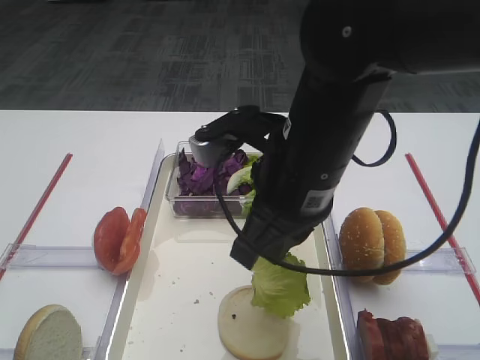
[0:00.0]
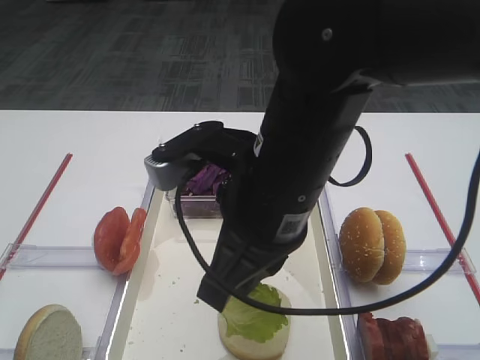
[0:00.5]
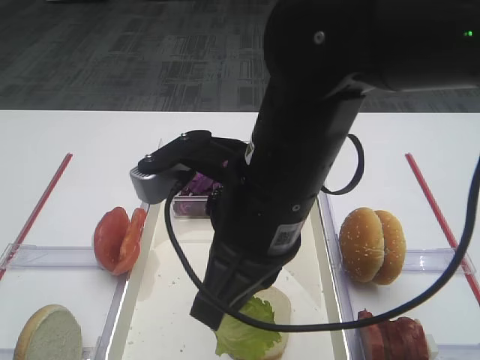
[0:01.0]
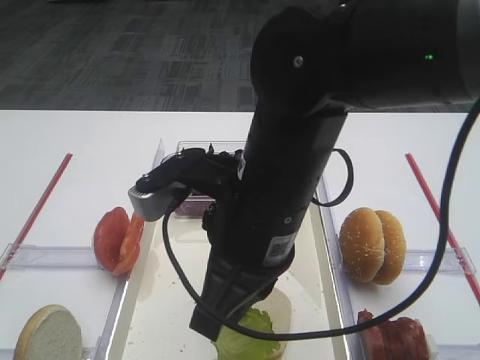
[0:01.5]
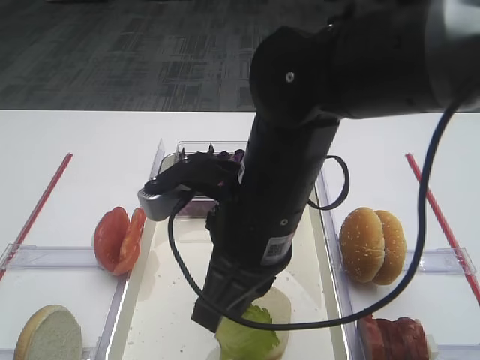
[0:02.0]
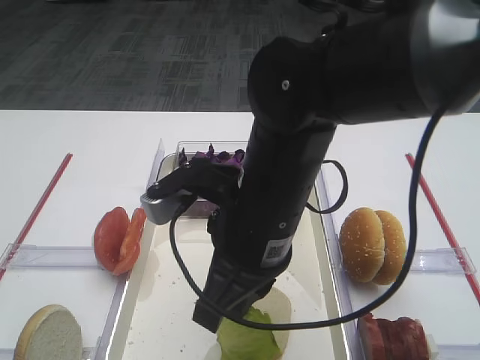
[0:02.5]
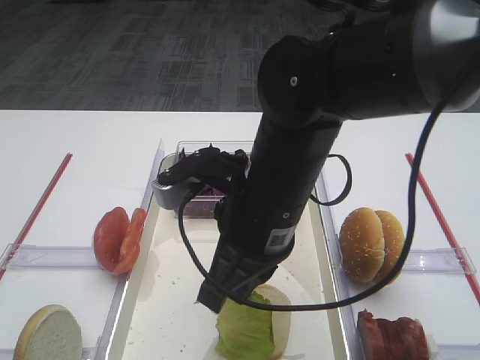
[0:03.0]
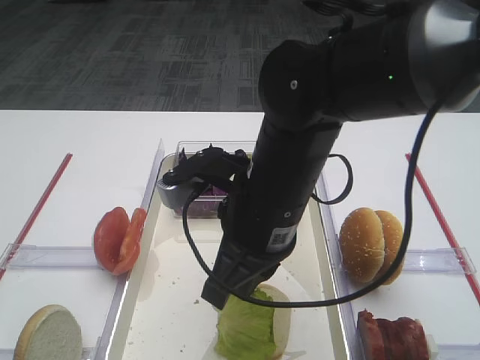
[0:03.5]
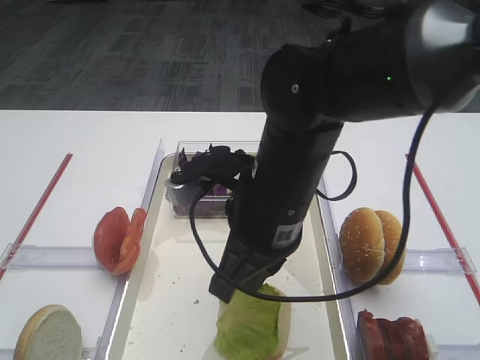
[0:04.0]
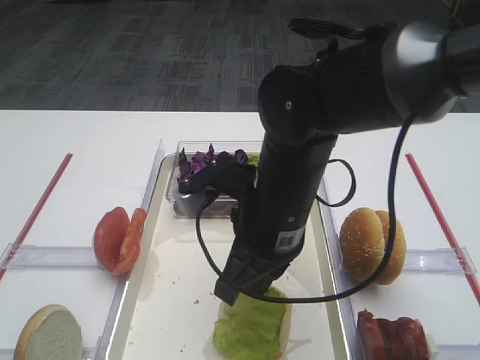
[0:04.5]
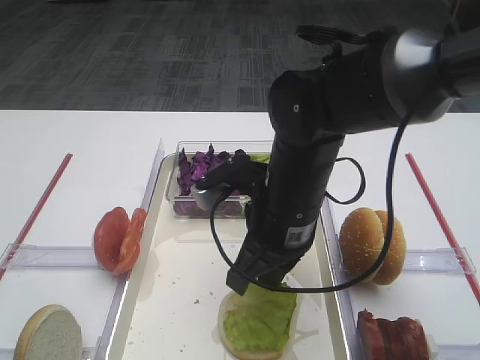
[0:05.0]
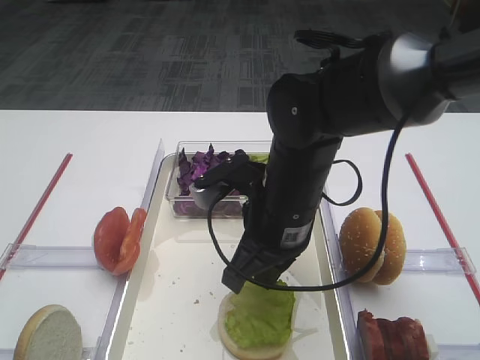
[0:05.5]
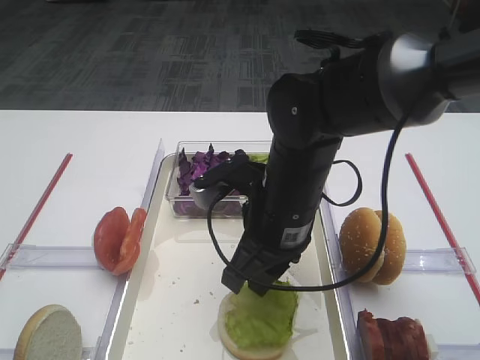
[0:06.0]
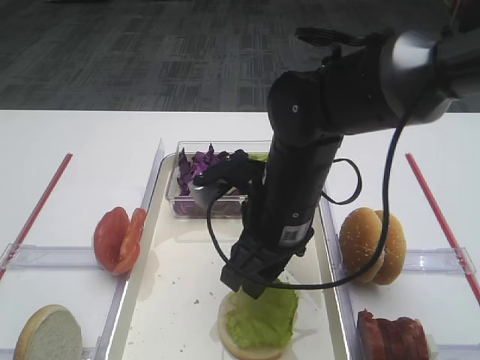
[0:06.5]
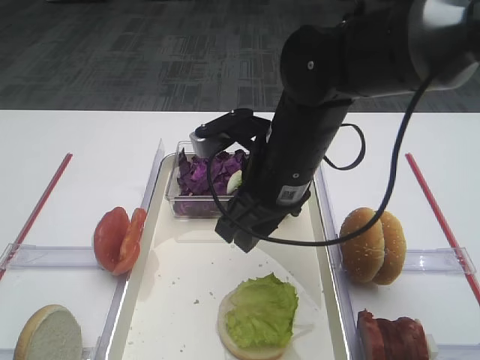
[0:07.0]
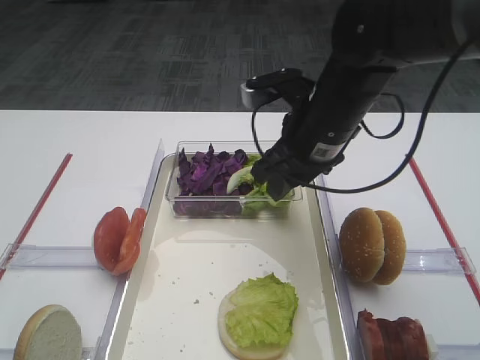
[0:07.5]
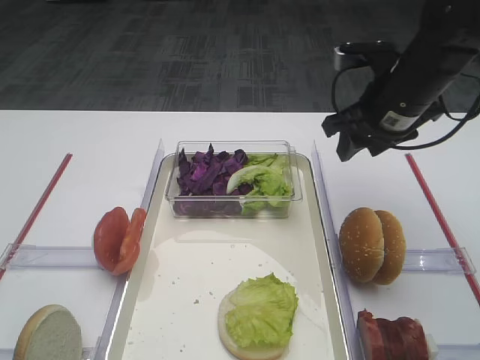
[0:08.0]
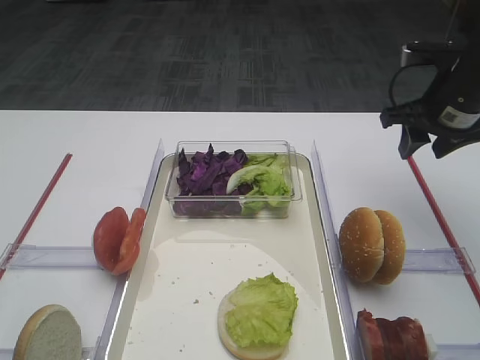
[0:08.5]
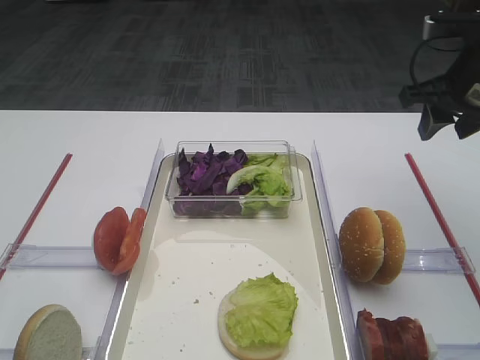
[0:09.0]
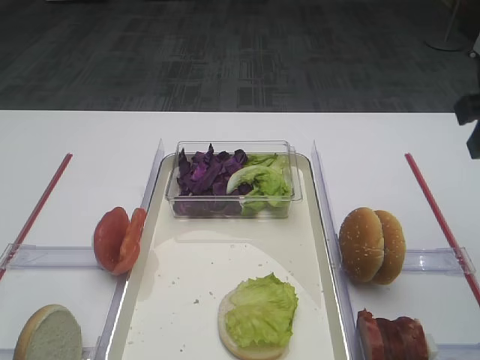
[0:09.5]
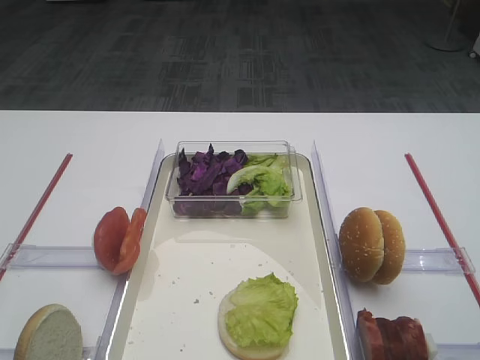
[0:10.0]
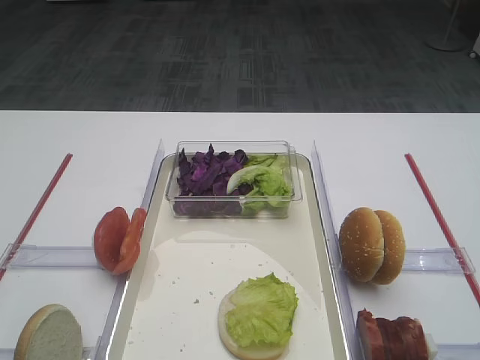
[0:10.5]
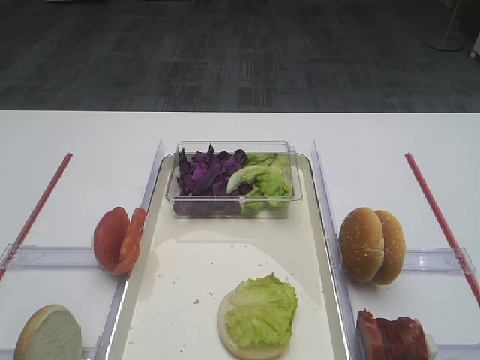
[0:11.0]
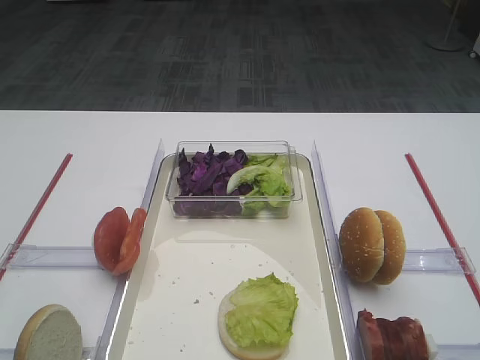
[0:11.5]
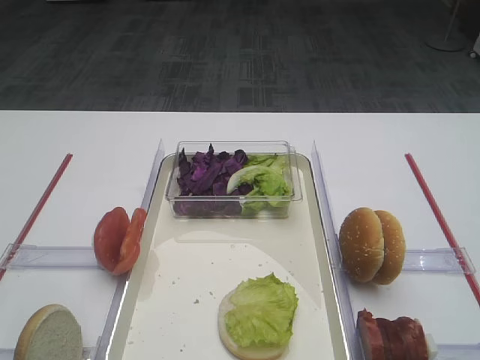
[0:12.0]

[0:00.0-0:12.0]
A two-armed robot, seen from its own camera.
Step, 0:00.0 to 0:07.0: Place the lettuce leaf on the bread slice with the right gripper.
0:02.0 to 0:04.0: The grippers move only a little.
0:04.0 to 0:06.0: The right gripper opens up.
0:06.0 to 0:08.0: The right gripper is displaced to the right and forward by about 20 cm, and opens up.
0:08.0 to 0:10.0: The right gripper travels backward by some 25 cm.

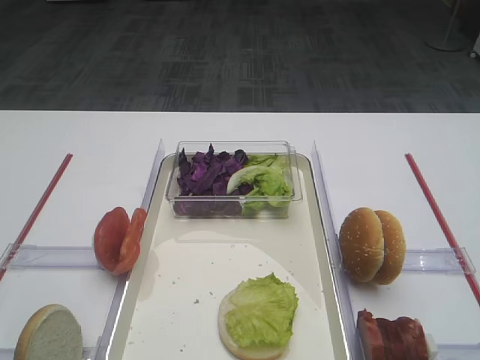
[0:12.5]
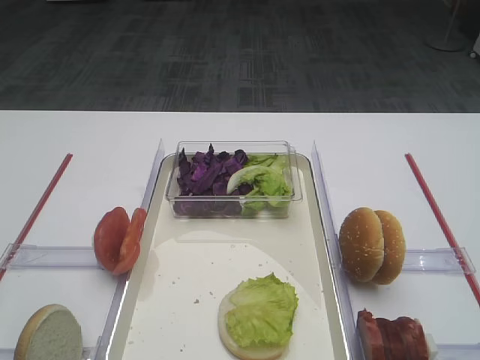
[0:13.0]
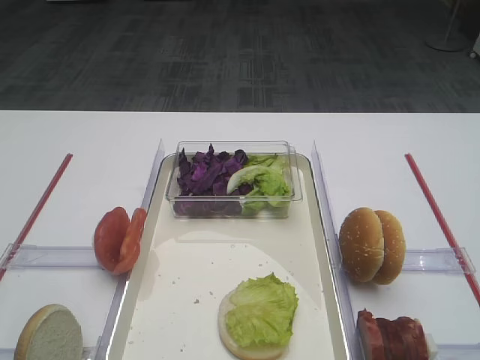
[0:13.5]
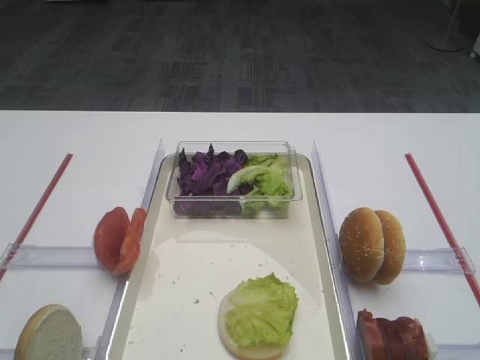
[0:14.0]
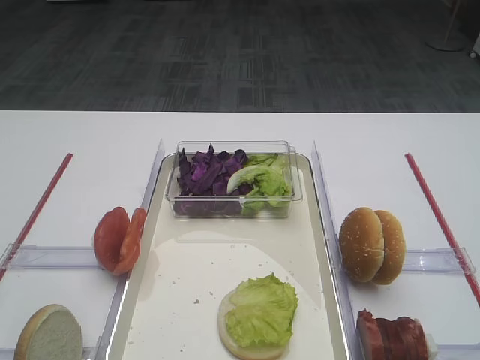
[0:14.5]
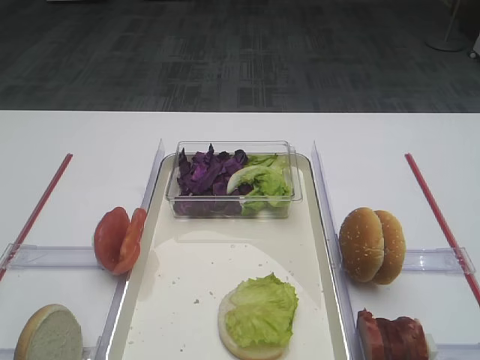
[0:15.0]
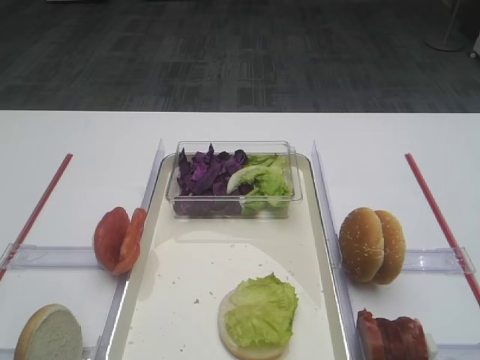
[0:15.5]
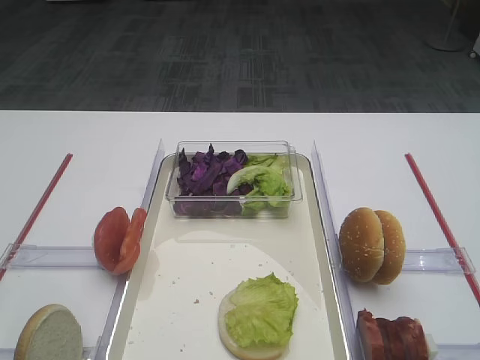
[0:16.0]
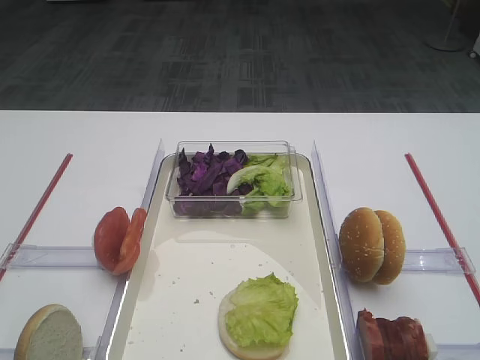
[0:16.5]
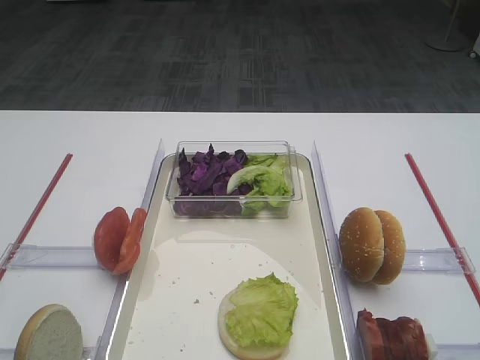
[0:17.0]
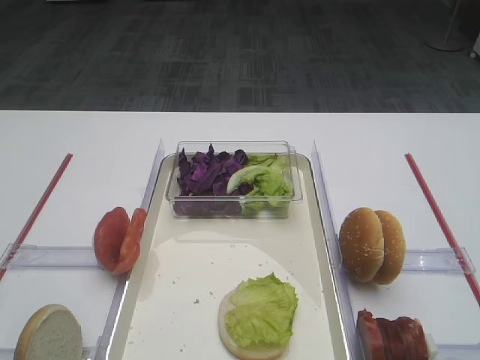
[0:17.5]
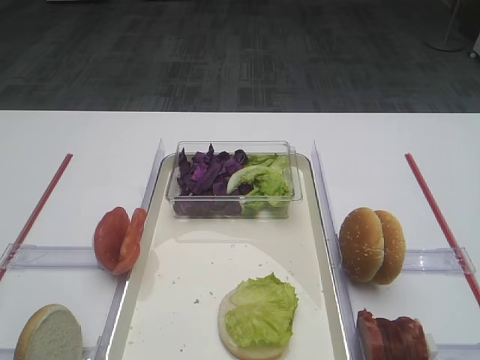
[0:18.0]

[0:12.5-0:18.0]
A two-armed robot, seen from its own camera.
0:12.5 to 0:18.0: Both grippers stay put.

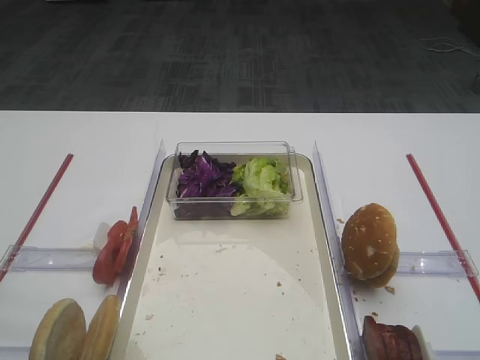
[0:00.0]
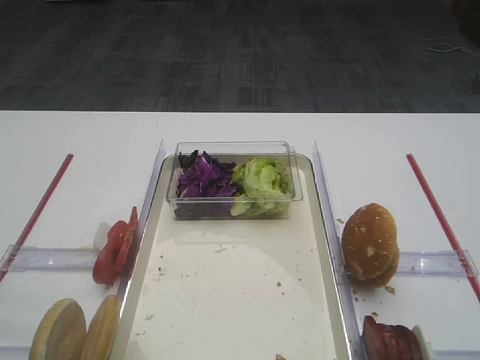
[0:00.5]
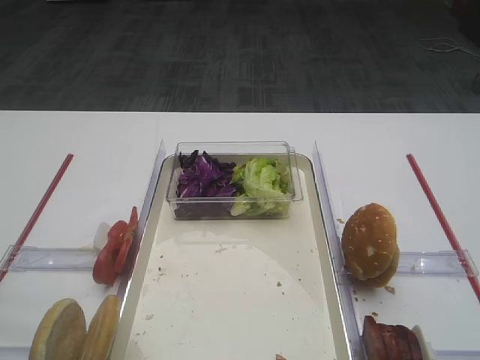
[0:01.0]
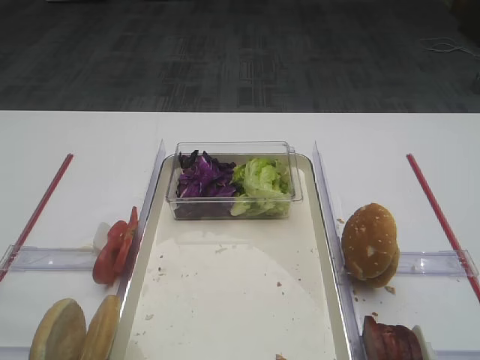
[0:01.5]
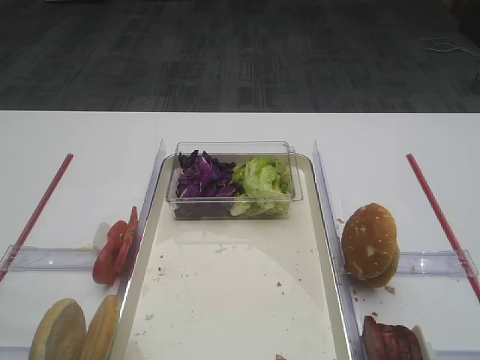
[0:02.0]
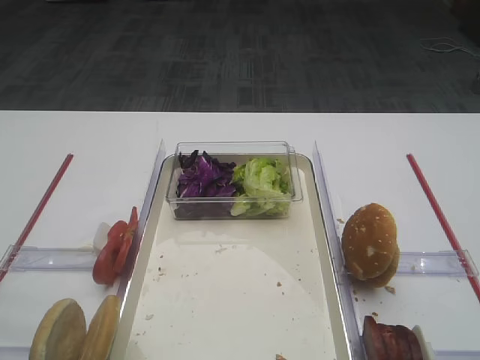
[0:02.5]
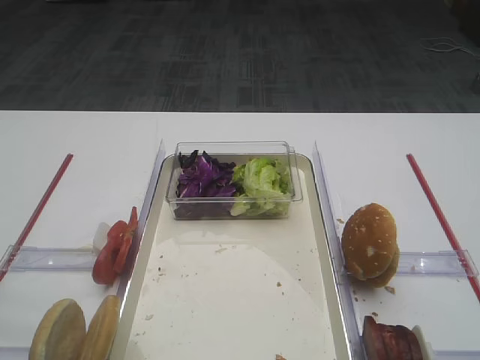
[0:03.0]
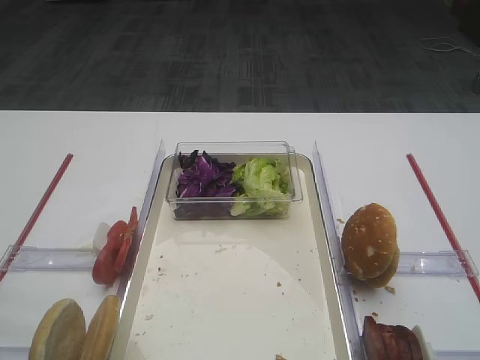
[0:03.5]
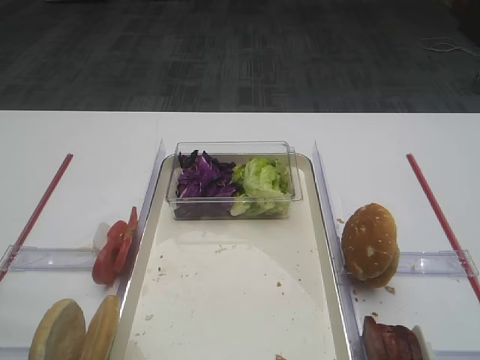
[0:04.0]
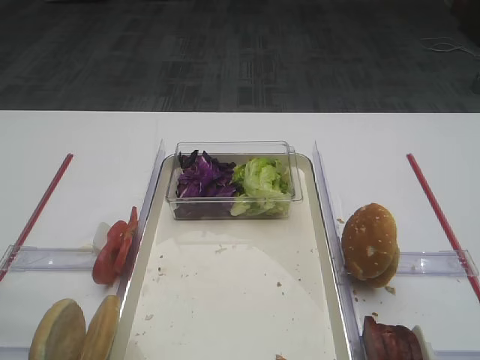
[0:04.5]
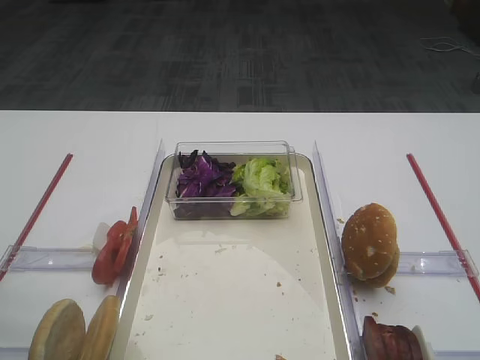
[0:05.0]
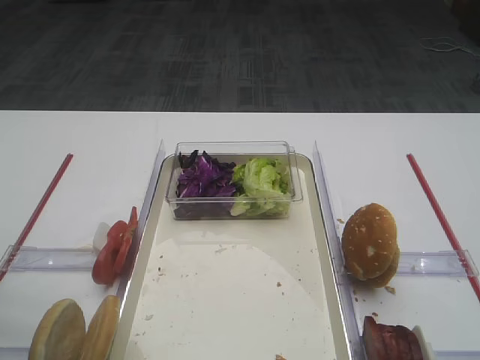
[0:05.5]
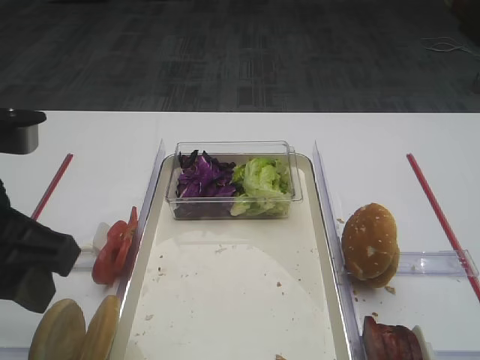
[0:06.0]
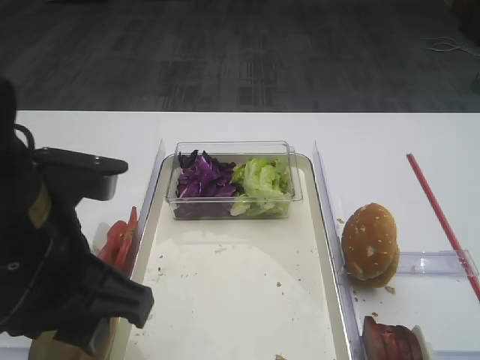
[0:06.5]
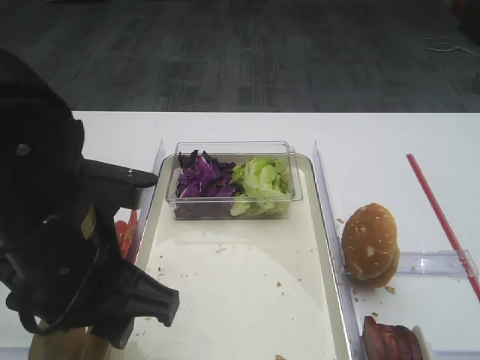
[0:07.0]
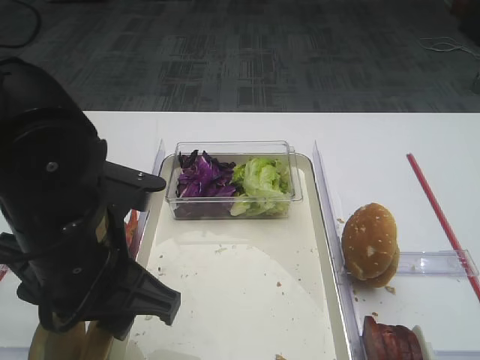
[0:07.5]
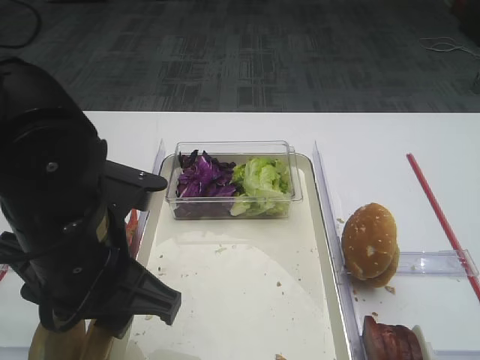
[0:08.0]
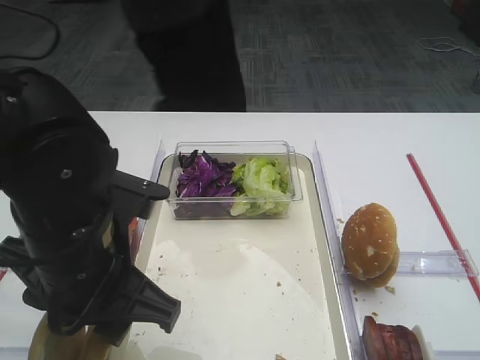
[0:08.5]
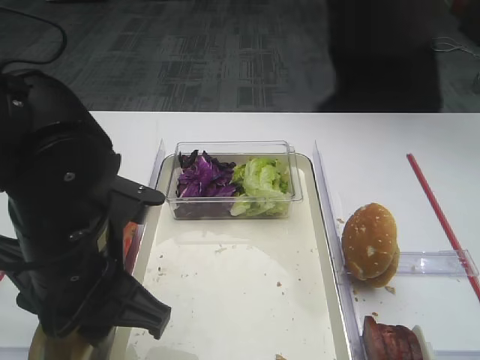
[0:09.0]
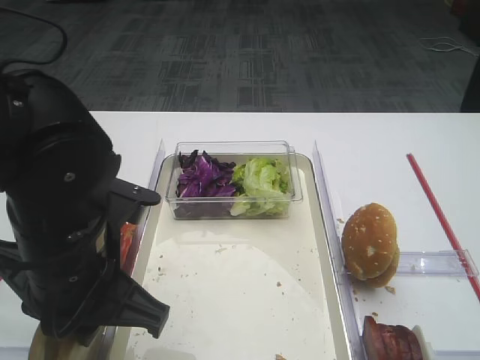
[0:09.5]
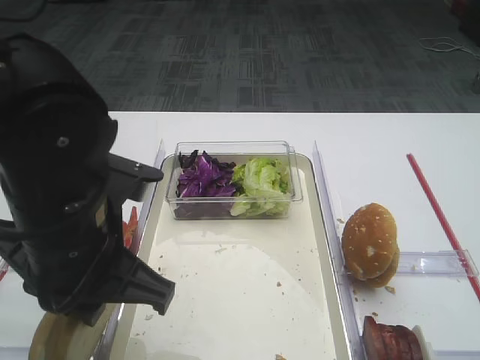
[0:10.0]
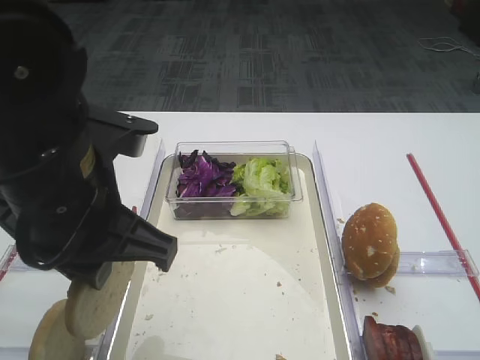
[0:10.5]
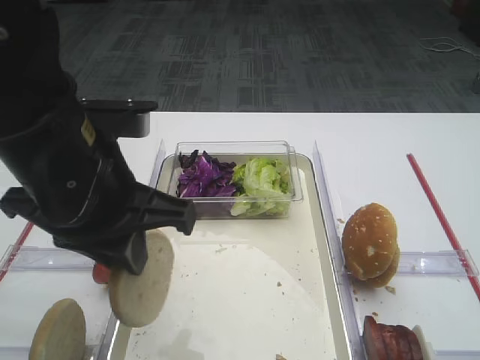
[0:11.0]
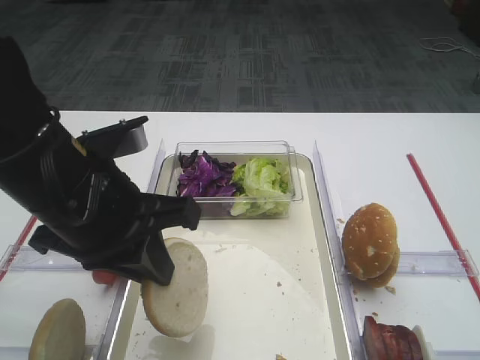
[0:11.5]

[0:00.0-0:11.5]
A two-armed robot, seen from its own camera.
Step, 0:00.0 to 0:10.0: Pick up the bread slice with the left gripper.
0:04.0 to 0:06.0: The left gripper moves forward and to the right, about 10 cm.
0:06.0 to 0:07.5: The left gripper heads to the right and downward, covering some 10 cm.
0:07.5 to 0:09.5: The left gripper closes.